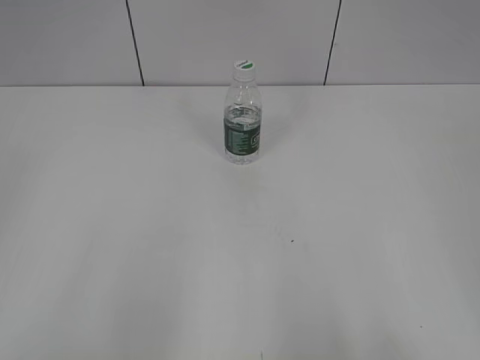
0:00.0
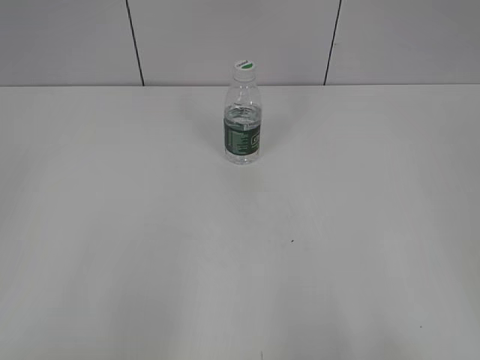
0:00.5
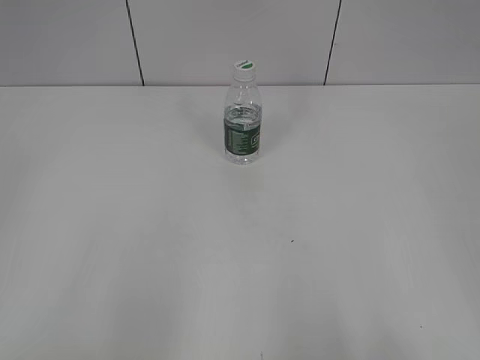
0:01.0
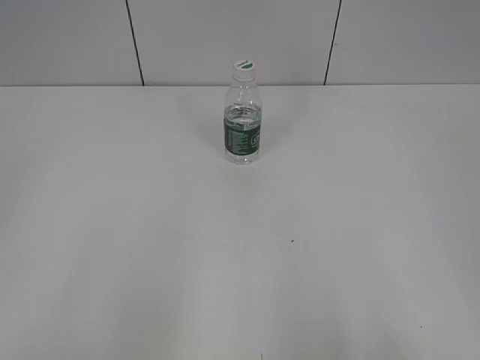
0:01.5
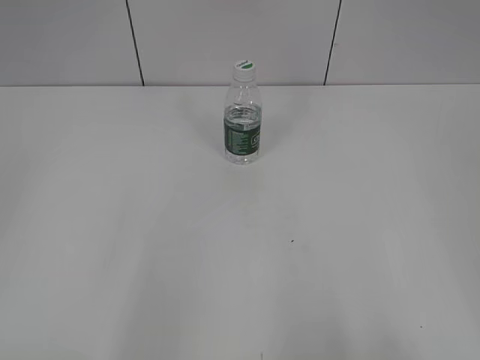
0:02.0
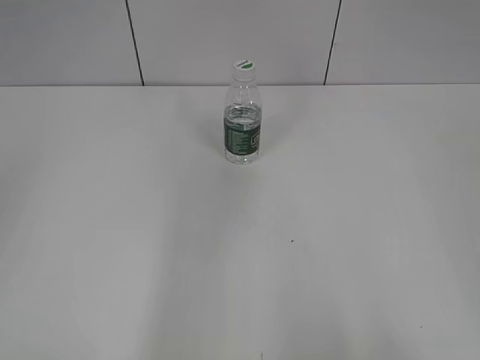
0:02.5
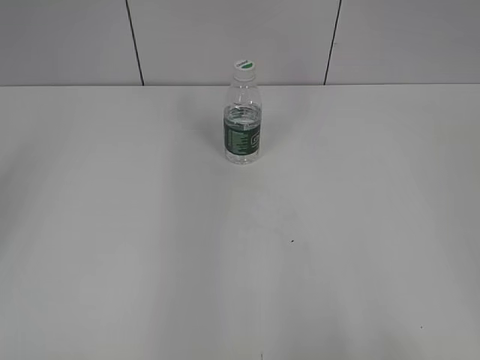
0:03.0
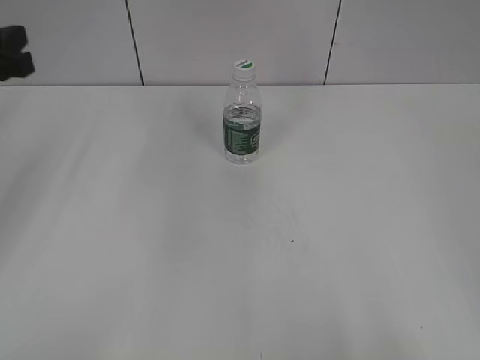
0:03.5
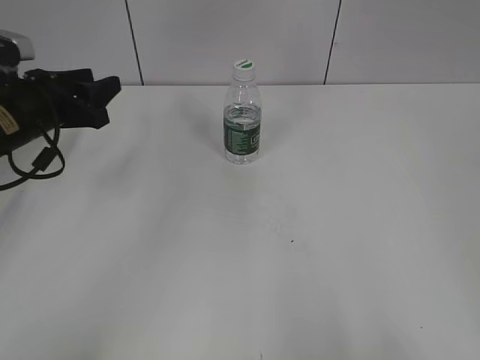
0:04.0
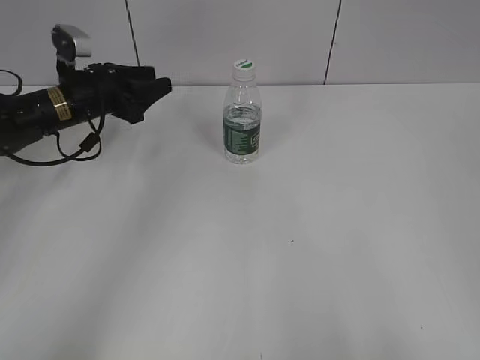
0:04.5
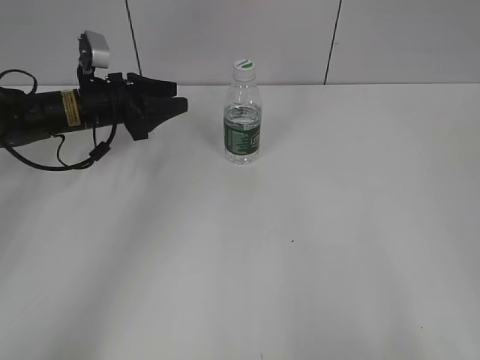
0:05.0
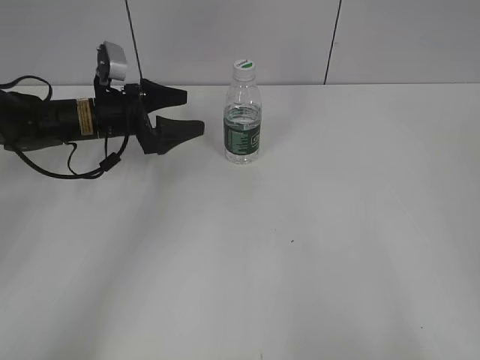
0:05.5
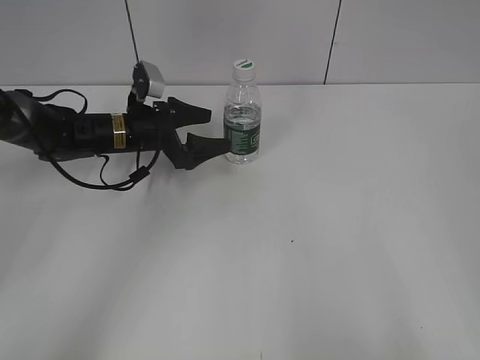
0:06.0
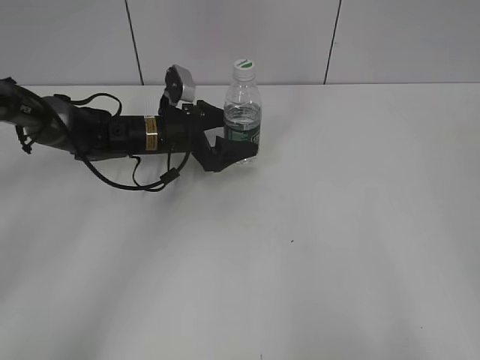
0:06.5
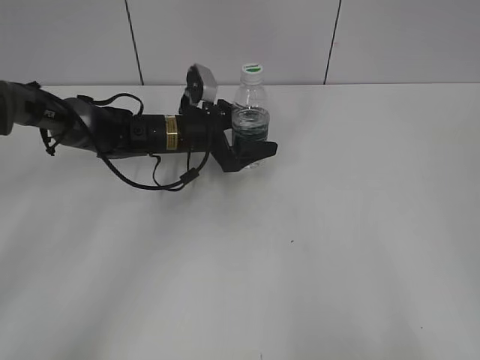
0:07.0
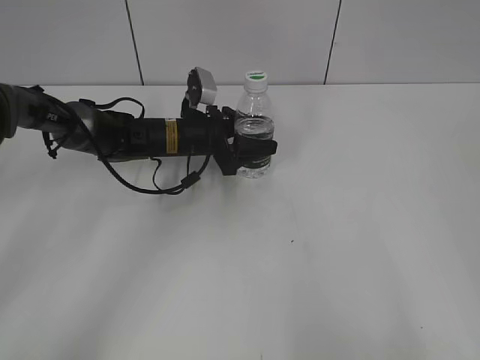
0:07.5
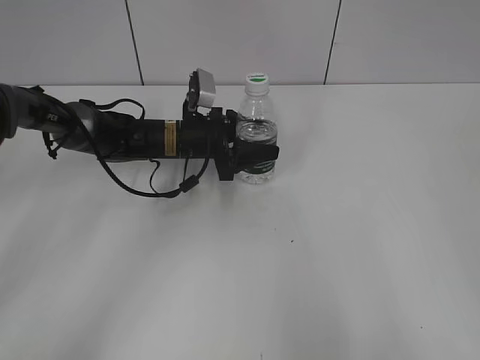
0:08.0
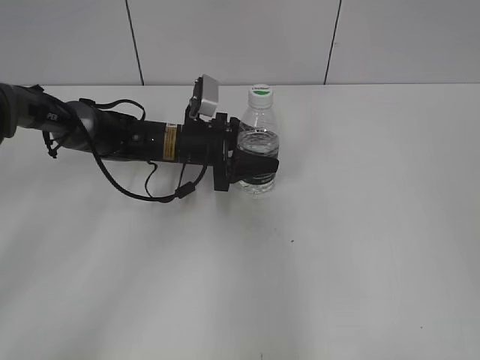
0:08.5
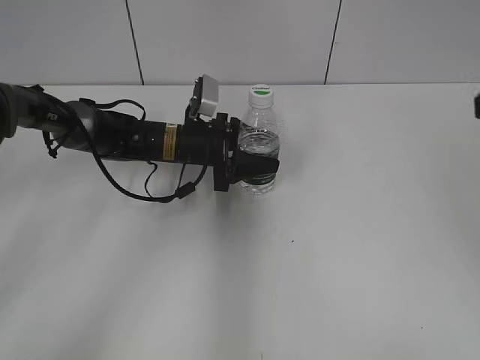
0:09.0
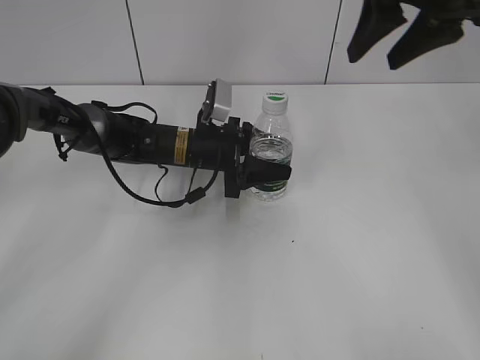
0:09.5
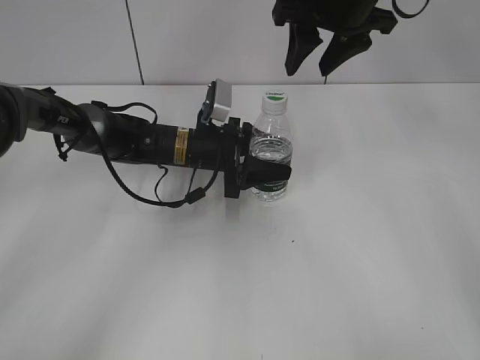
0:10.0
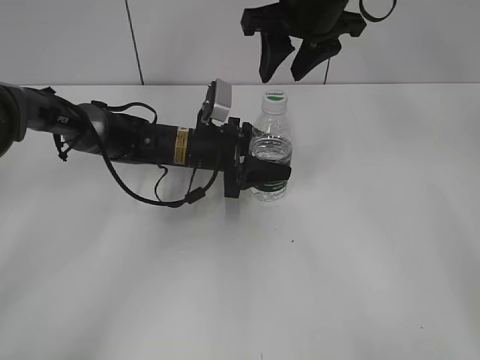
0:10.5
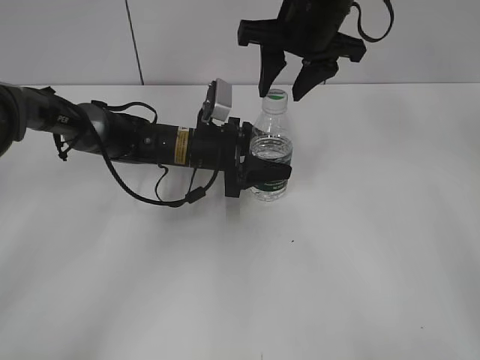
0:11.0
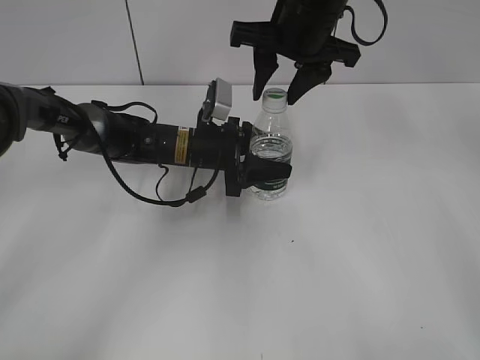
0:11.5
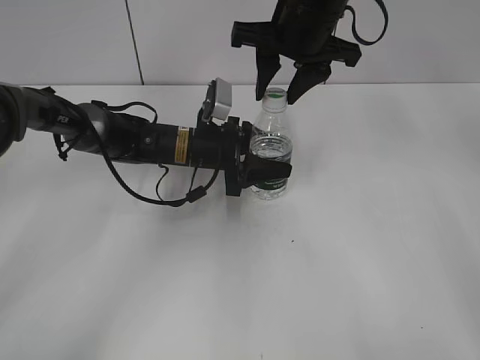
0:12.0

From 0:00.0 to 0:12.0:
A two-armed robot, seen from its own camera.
Step, from 0:00.0 to 0:07.0: Grasp the bottle and move it to the center of the table with the left gripper.
From 0:02.0 to 0:04.0: The left gripper heads forward, covering about 35 cm.
From 0:04.0 to 0:06.0: The left gripper moves to the right, forward and downward, about 15 cm, and opens.
From 0:06.0 to 0:08.0: The left gripper moves to the right, roughly 10 cm, and closes its fingers.
From 0:08.0 to 0:10.0: The right gripper moves forward and to the left, about 40 cm.
From 0:10.0 to 0:12.0: The right gripper shifts by roughly 5 cm.

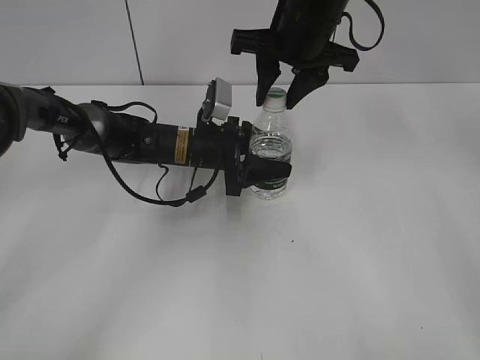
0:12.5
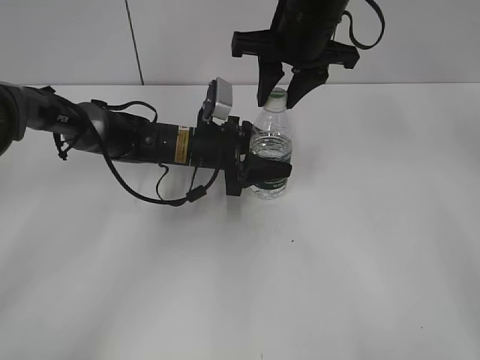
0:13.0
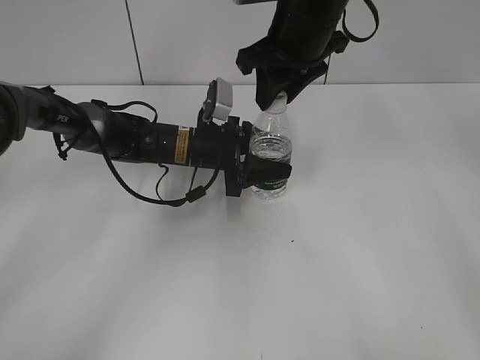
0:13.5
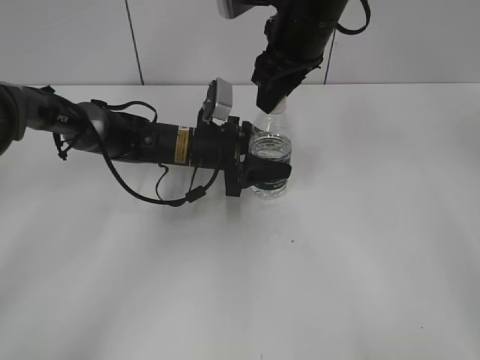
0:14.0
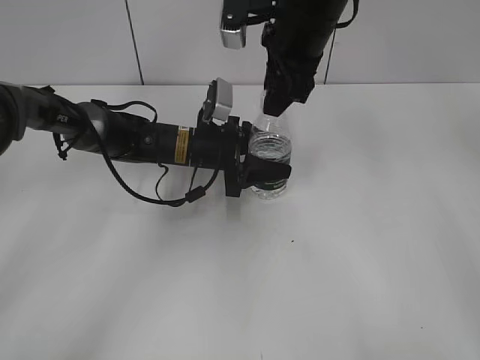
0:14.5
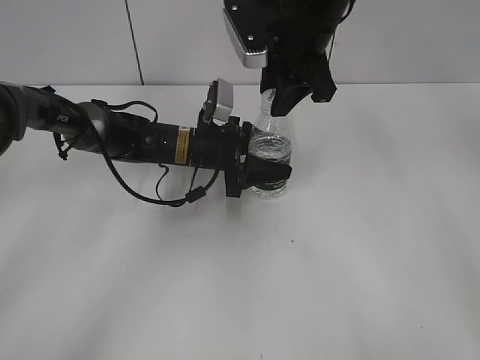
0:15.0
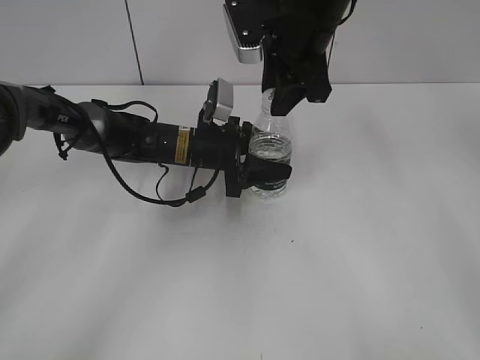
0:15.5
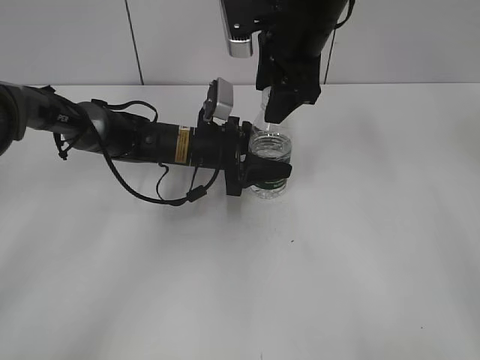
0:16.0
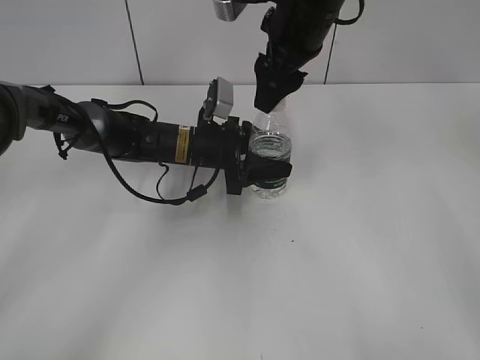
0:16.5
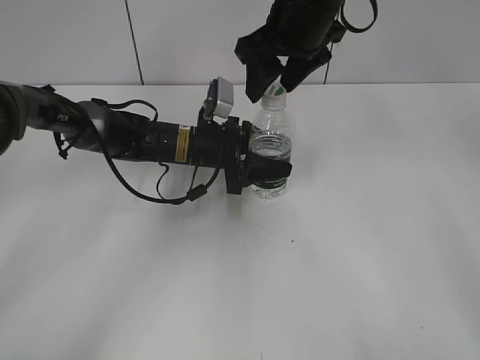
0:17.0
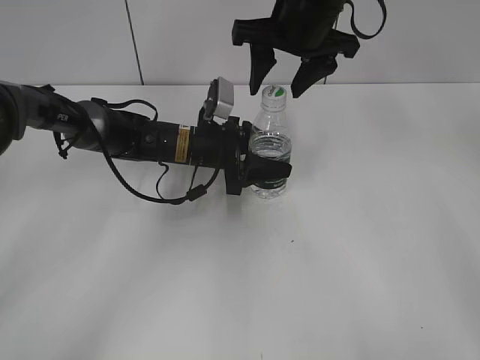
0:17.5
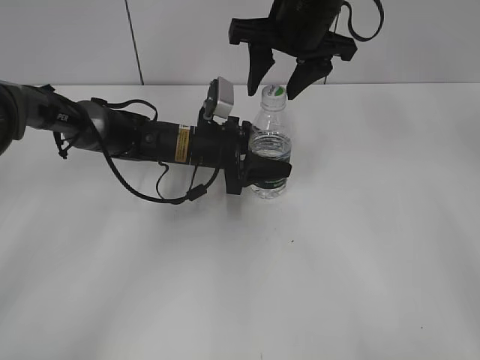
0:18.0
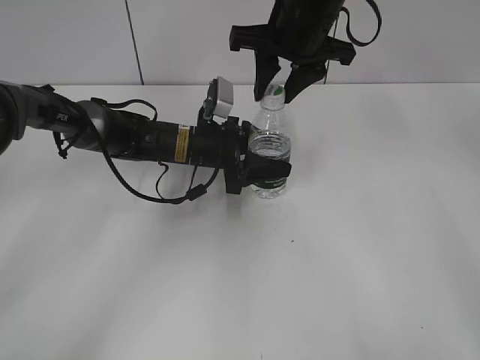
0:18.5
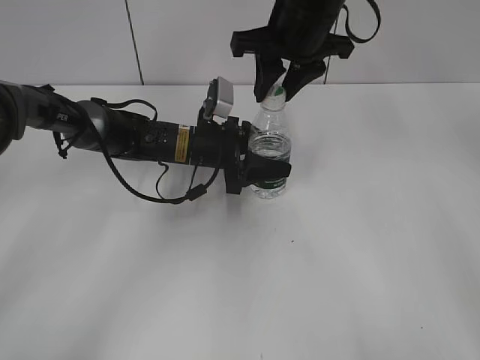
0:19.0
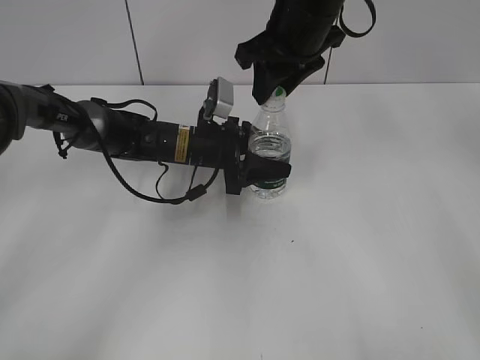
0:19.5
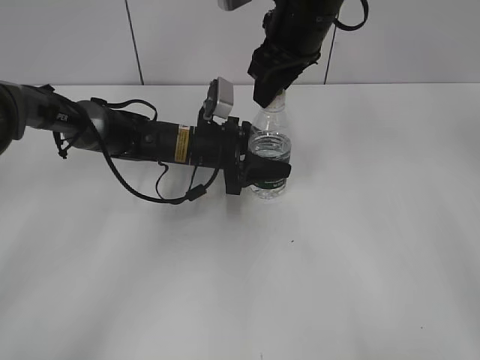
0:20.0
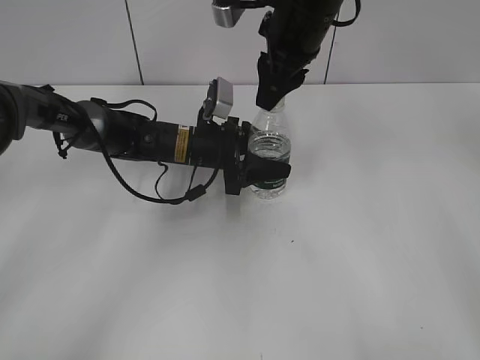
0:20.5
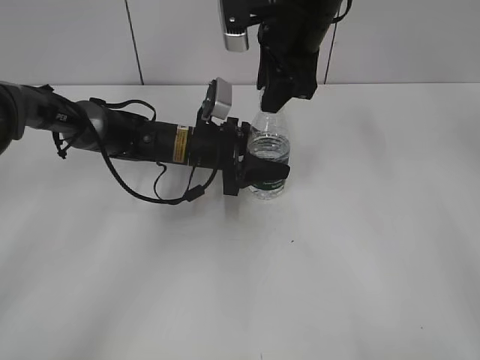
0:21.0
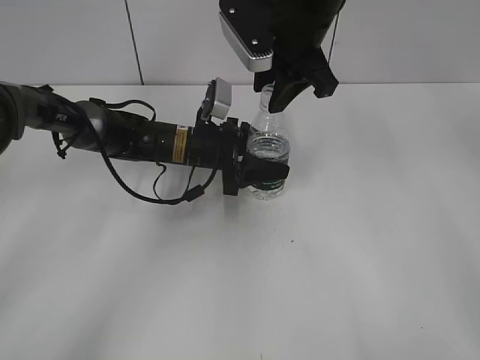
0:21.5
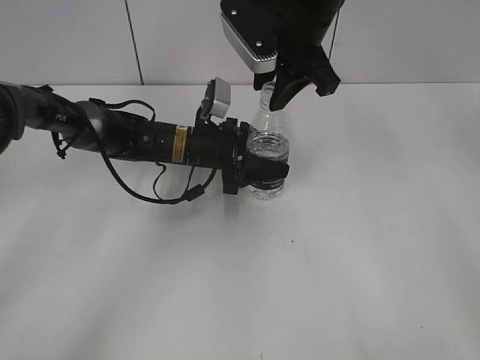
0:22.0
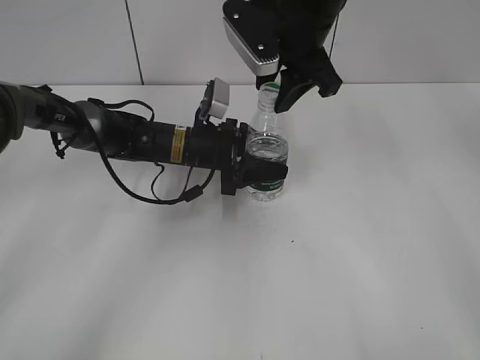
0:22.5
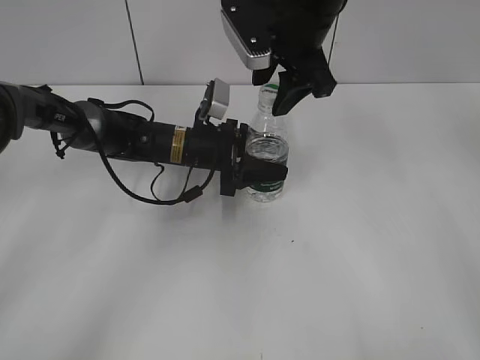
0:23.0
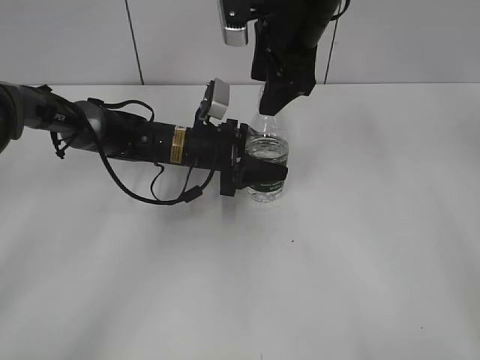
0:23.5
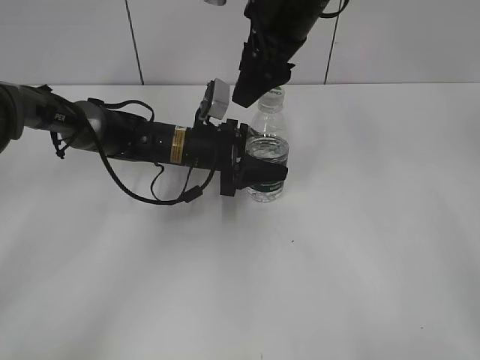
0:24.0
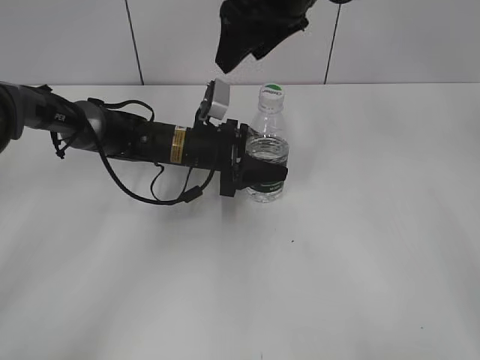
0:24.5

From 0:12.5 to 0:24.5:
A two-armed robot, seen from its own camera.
From 0:14.5 to 0:16.5: The right gripper opens.
From 0:16.5 to 0:18.5: The right gripper closes.
From 0:22.5 to 0:24.5: The right gripper opens its fingers.

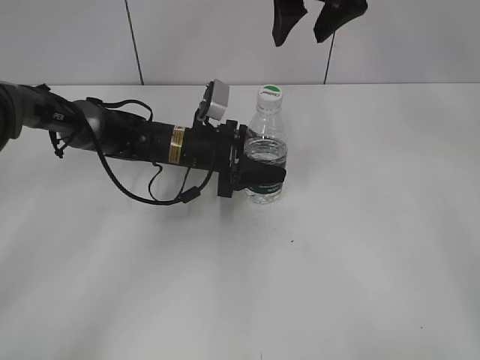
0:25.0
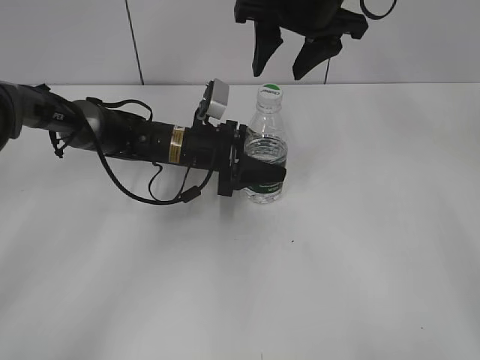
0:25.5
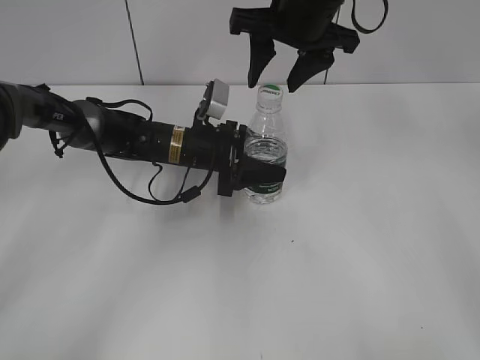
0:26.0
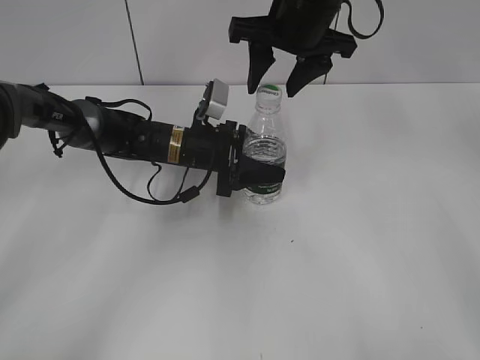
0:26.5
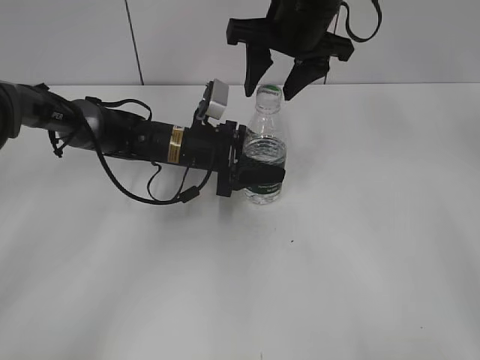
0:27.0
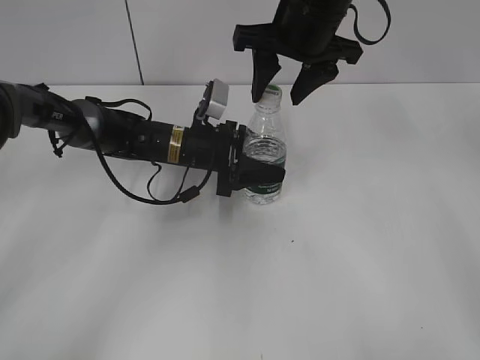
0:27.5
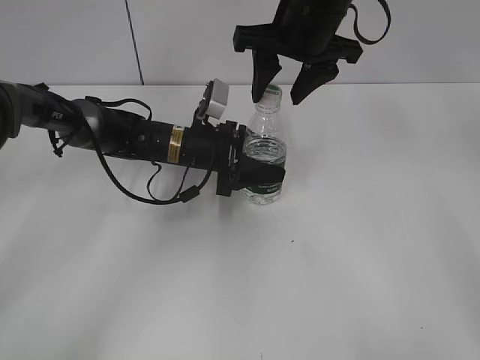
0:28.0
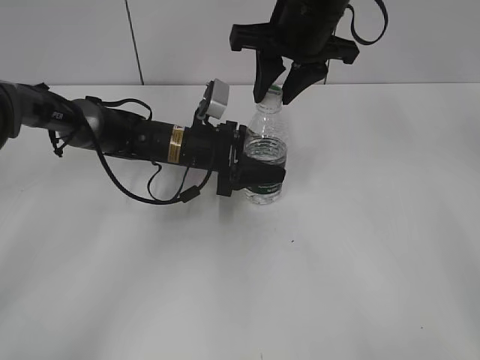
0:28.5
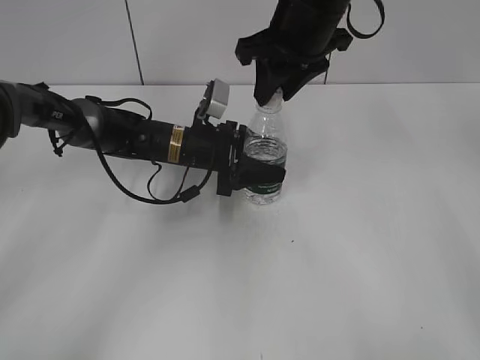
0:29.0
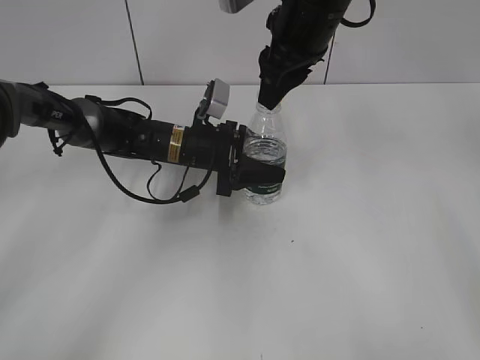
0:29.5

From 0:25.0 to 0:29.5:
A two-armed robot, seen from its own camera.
From 0:25.0 to 0:27.0: The right gripper travels downward by roughly 5 cm.
From 0:27.0 to 0:29.5: The right gripper closes.
